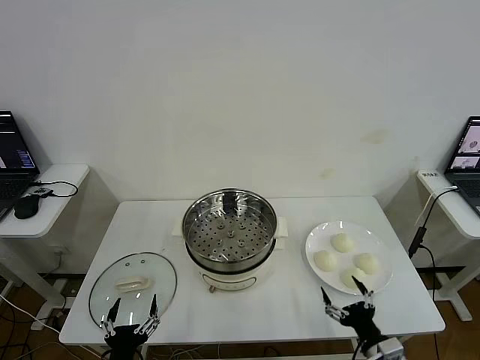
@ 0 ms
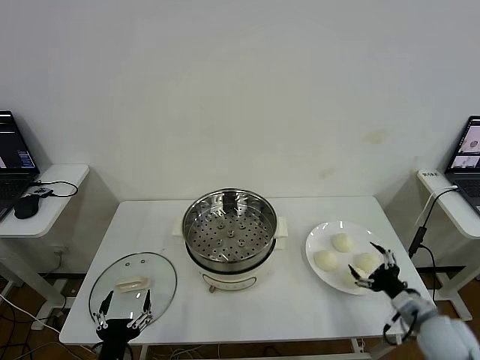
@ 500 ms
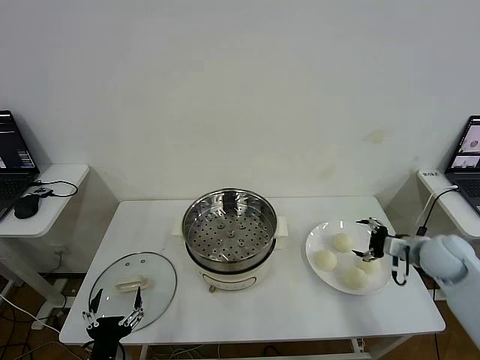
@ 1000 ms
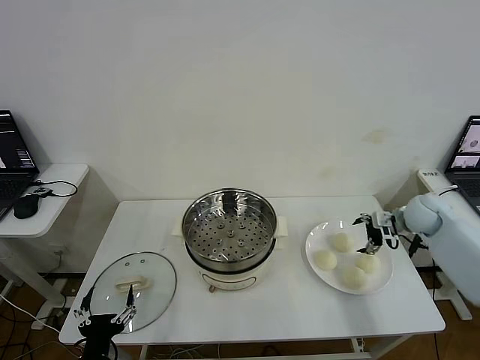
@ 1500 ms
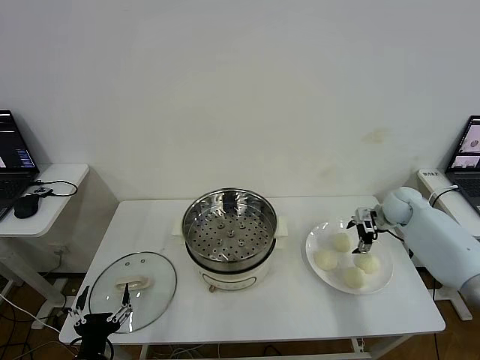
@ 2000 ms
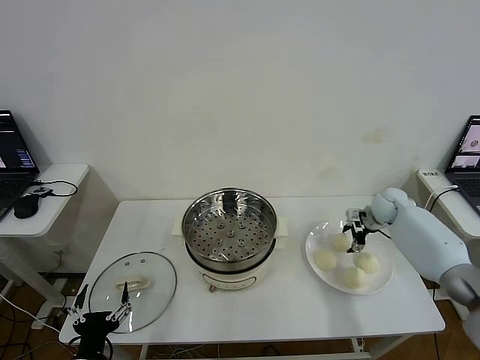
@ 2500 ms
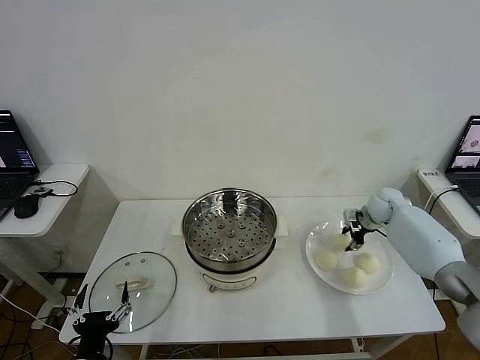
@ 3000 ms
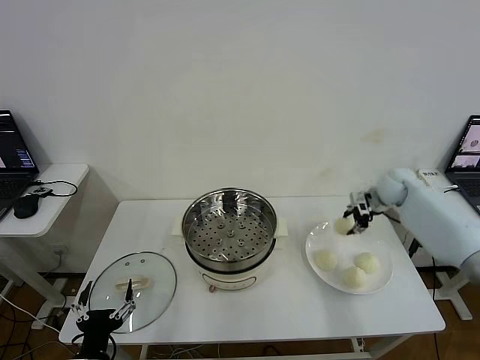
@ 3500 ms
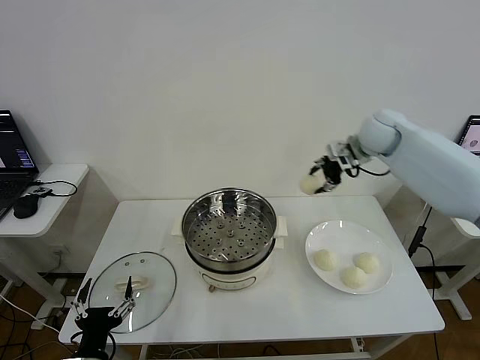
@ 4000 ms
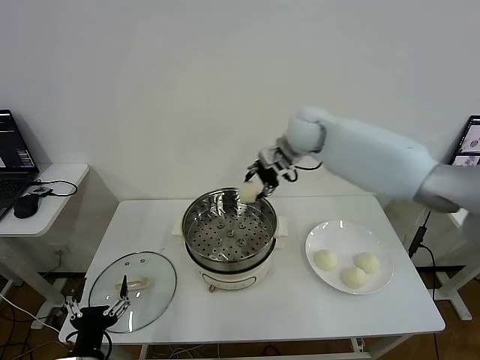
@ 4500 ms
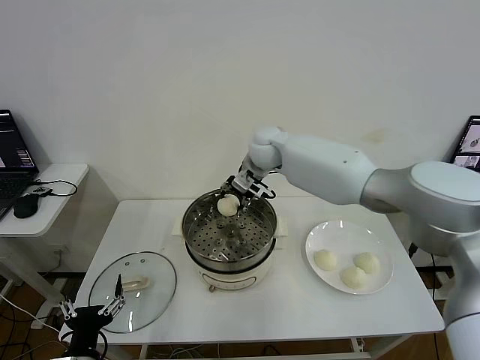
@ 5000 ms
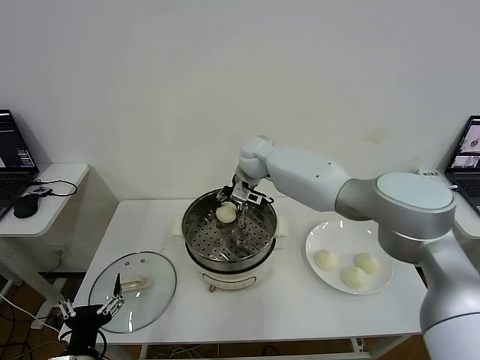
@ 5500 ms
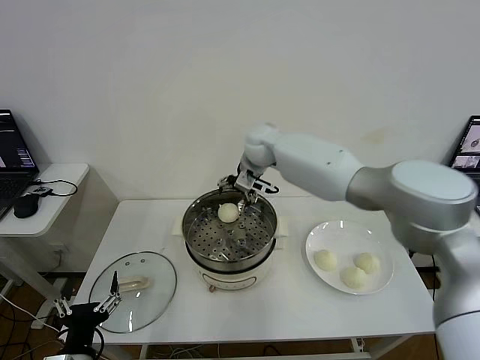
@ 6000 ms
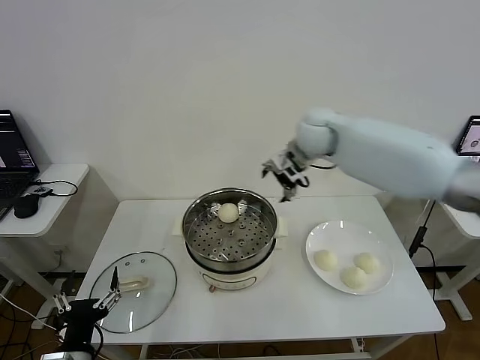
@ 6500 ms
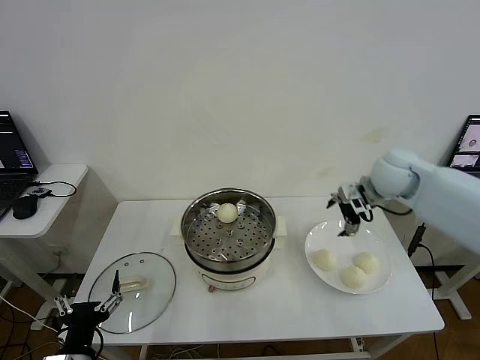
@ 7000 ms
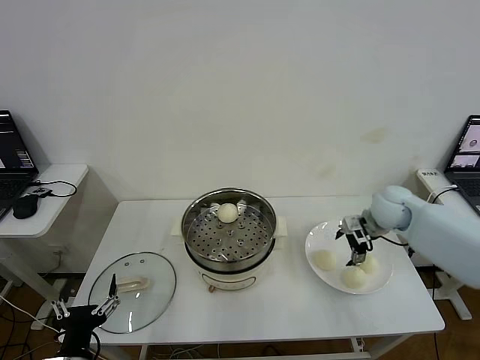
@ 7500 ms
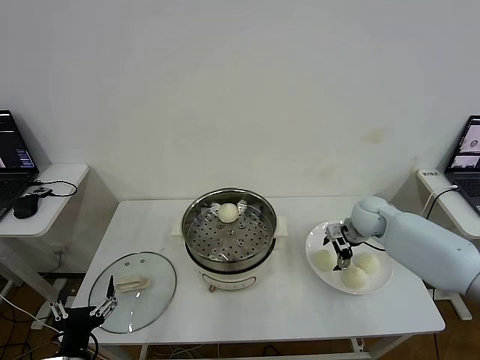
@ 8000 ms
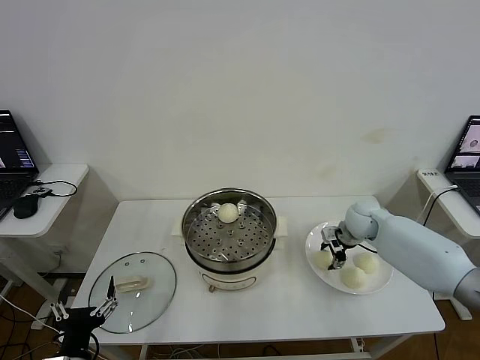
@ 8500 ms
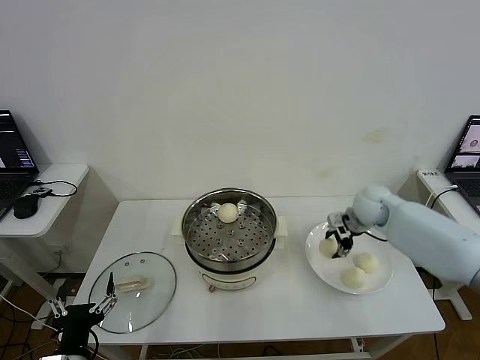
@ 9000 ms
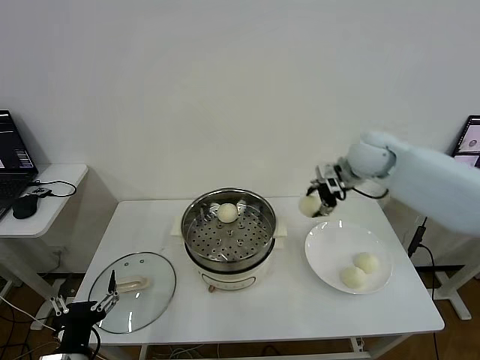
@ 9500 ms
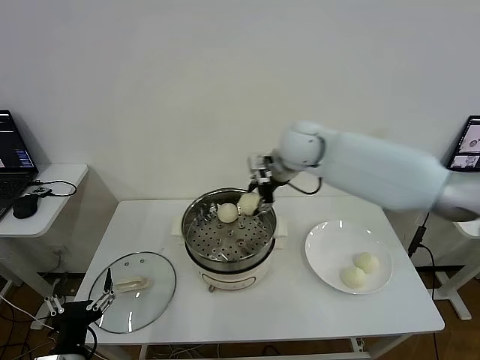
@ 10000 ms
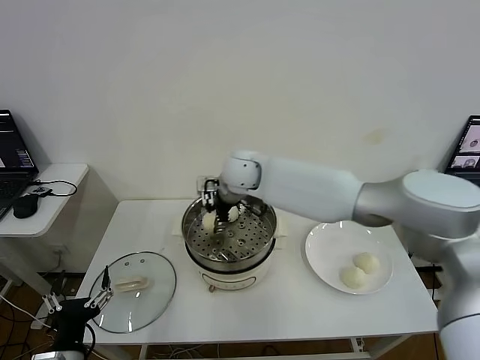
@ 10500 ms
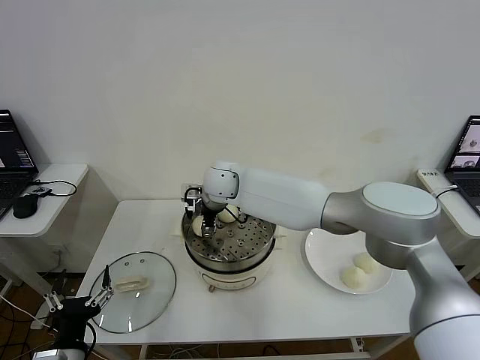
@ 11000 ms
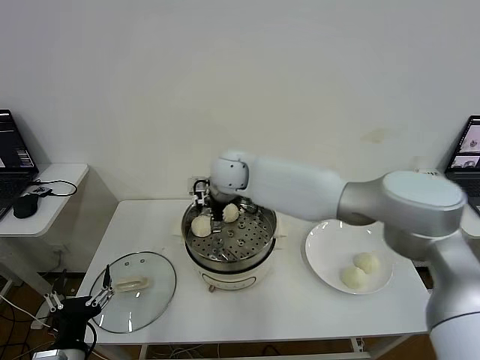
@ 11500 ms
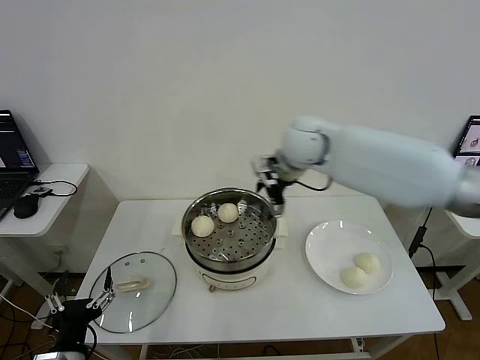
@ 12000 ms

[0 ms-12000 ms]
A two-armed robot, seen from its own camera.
Step, 0 ms to 2500 ms: Grasp the baozi in the plate with right gripper.
Step, 3500 ms to 5500 ms: Place the baozi on the steamer with right gripper.
Step, 6000 ms to 8500 ms: Grasp the baozi in the plate with right gripper.
Step, 9000 ms to 11000 ms: Place the baozi on the steamer with right gripper.
2000 ms to 4000 ms: The right gripper is displaced upward and to the left by some 25 cm, and closes up.
4000 ms to 6000 ms: The right gripper moves to the left, about 25 cm, and opens.
6000 ms to 8000 ms: The right gripper travels to the right and downward by approximately 30 cm.
8000 ms to 10000 ms: The right gripper shifts roughly 30 cm to the left and upward, and closes up.
10000 ms to 12000 ms: The right gripper moves roughly 15 cm to the left and comes back, and opens up.

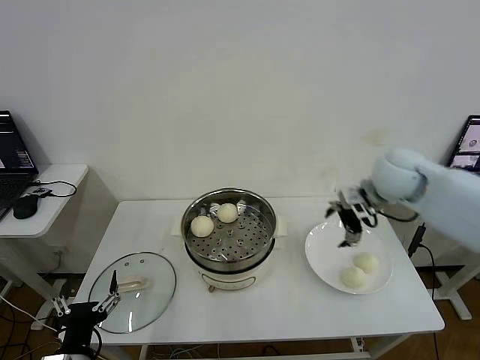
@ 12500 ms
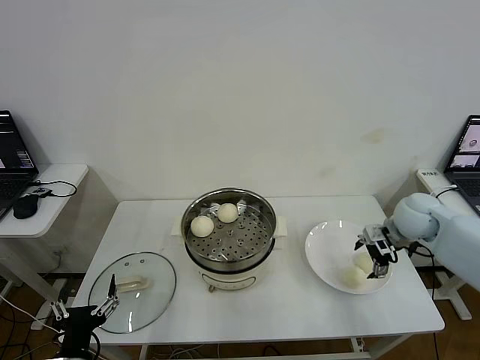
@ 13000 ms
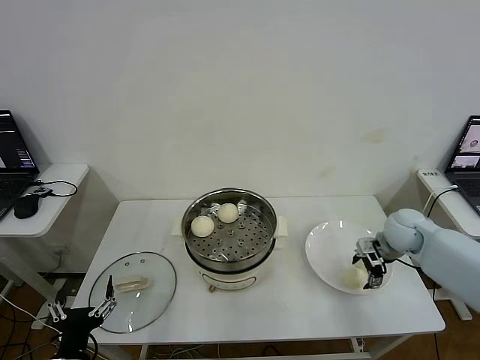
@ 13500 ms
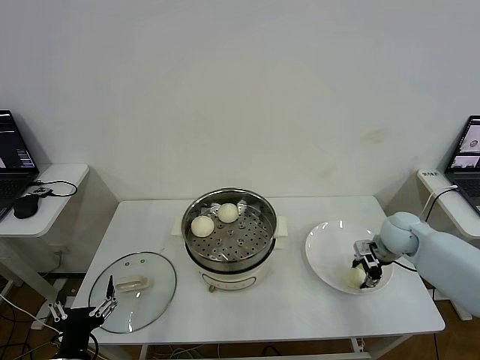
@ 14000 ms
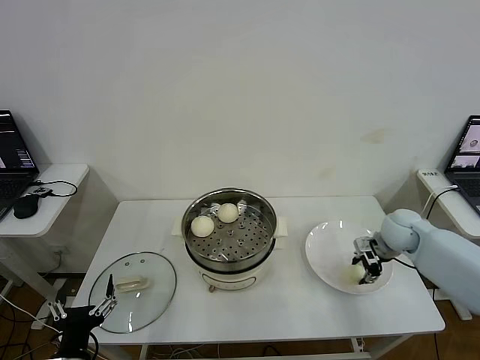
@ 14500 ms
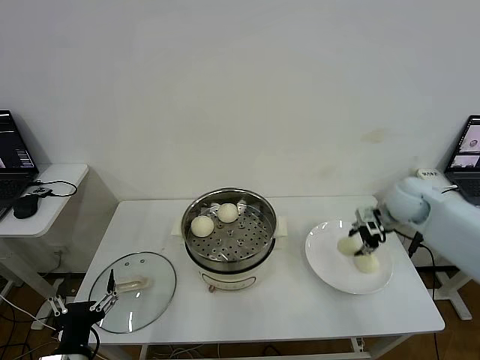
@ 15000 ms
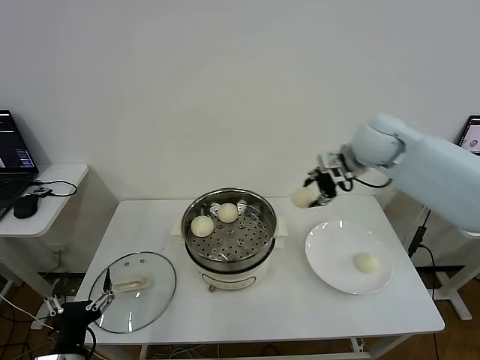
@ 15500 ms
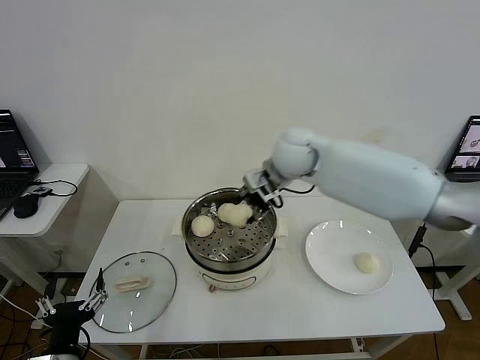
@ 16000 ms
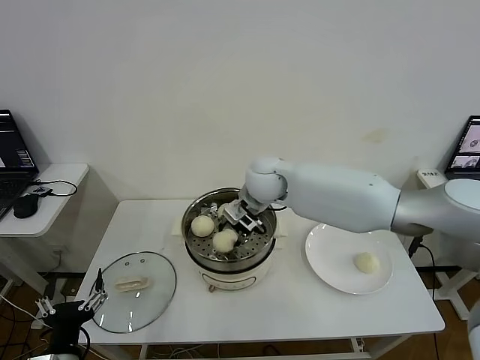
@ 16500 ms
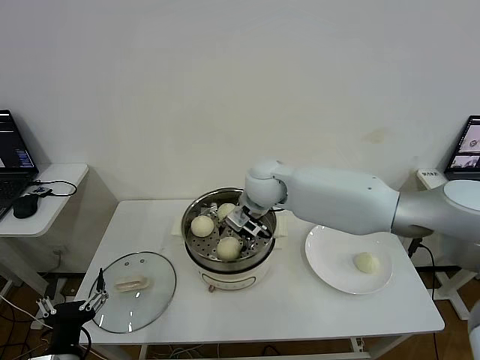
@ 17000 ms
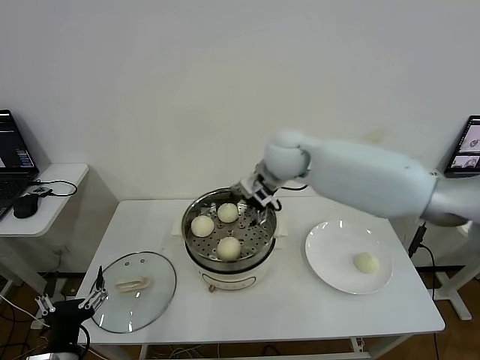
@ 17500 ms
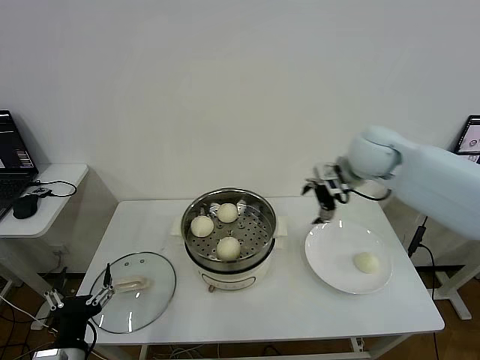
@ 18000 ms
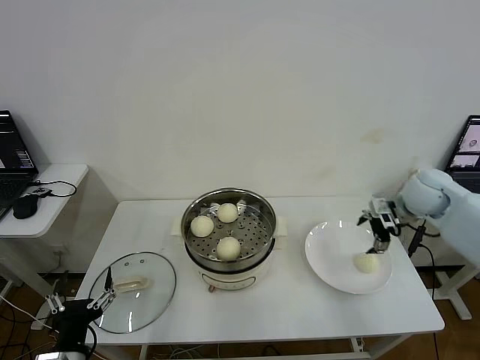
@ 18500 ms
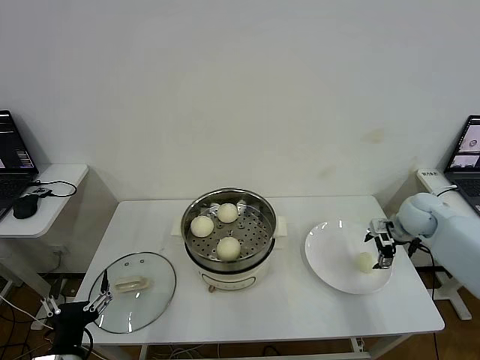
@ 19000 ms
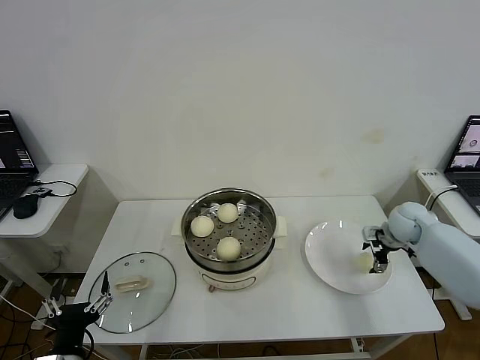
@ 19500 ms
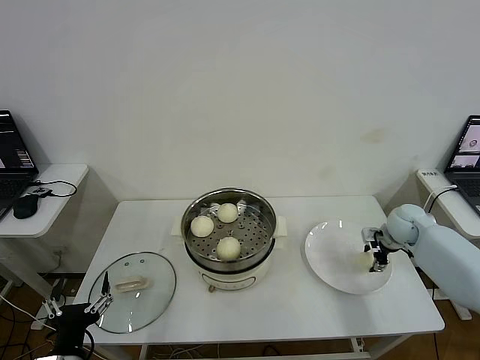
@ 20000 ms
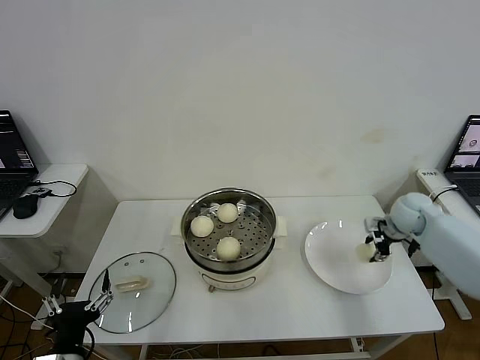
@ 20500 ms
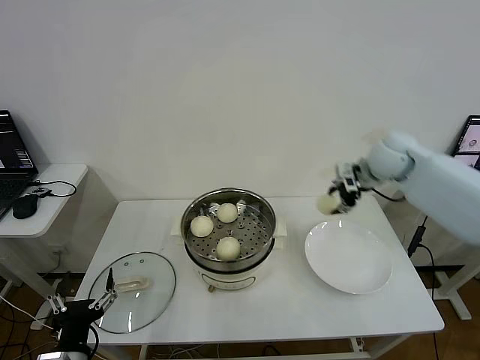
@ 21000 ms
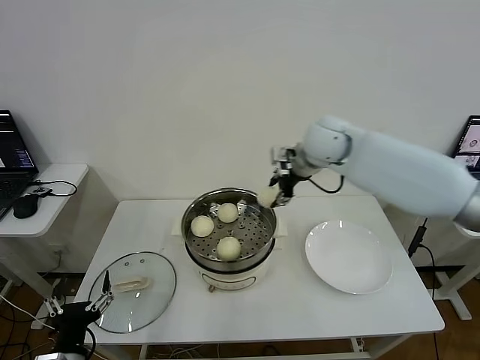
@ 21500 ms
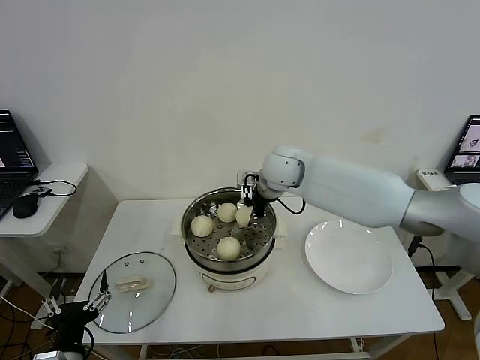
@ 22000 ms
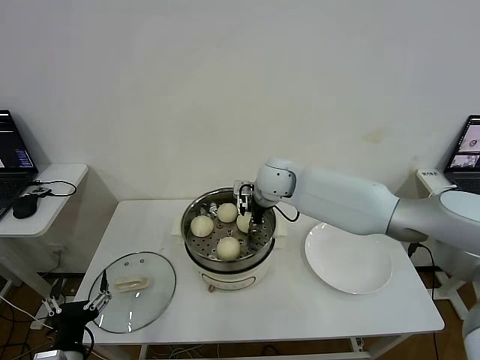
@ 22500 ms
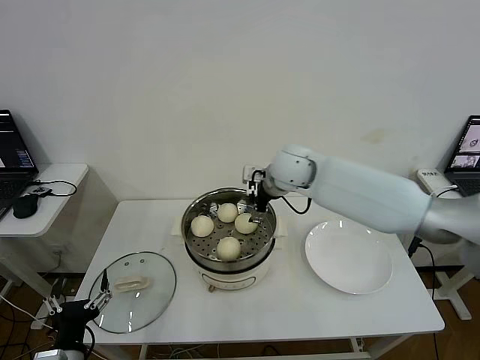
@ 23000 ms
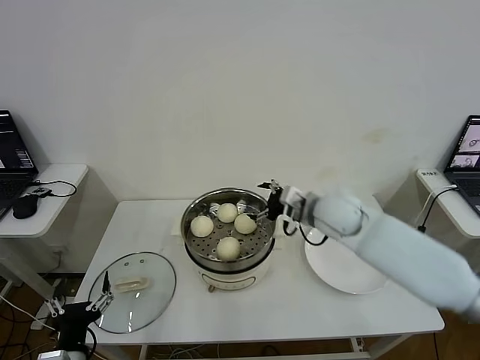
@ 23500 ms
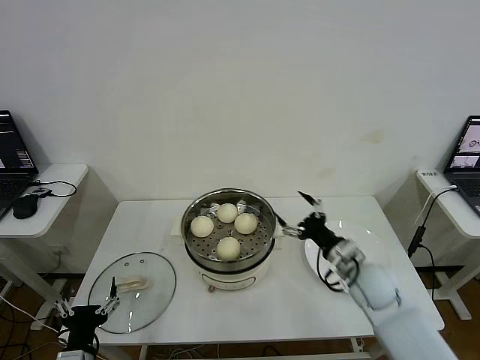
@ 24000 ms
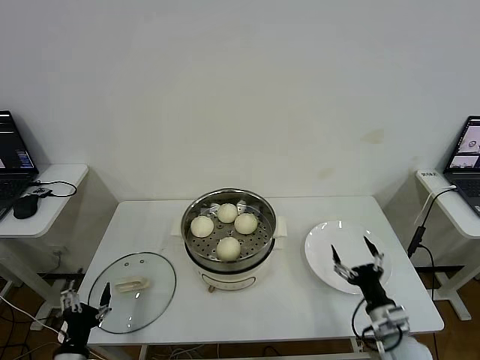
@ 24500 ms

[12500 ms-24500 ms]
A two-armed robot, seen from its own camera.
Step, 12500 ms to 14000 ms: Grasp the baozi in the plate with right gripper.
Step, 14500 ms to 17000 ms: Place the baozi on the steamer with right gripper.
Step, 17500 ms to 20000 ms: Grasp the baozi in the plate with right gripper.
Step, 20500 ms to 22500 ms: Place the baozi on the steamer with right gripper.
12500 ms to 14500 ms: The right gripper travels downward and to the right by about 20 cm, and closes up.
14500 ms to 16500 ms: The right gripper is displaced to the left by about 35 cm.
16500 ms to 18500 ms: The right gripper goes some 35 cm to the right, and opens up.
18500 ms to 20500 ms: The right gripper moves downward, some 10 cm, and closes.
20500 ms to 22500 ms: The right gripper shifts roughly 35 cm to the left.
22500 ms to 24500 ms: The right gripper shifts approximately 50 cm backward, to the right and downward, and opens its fingers. Meanwhile the left gripper moves downward, about 5 cm.

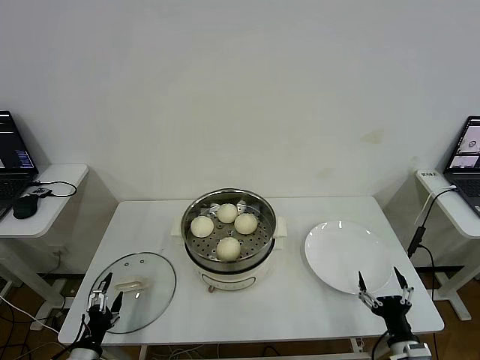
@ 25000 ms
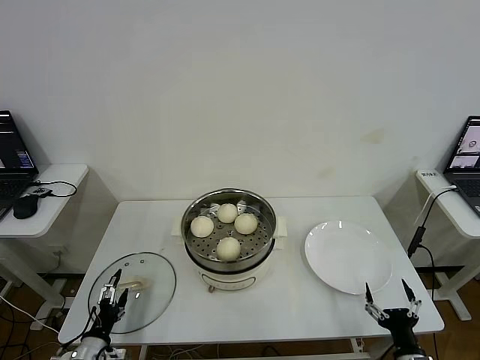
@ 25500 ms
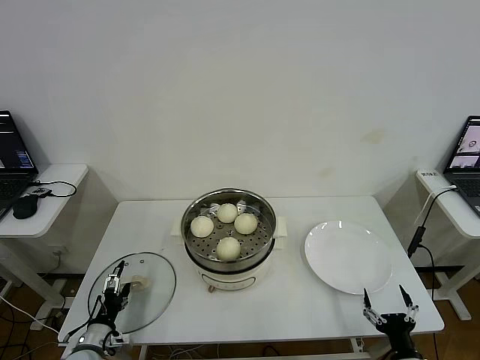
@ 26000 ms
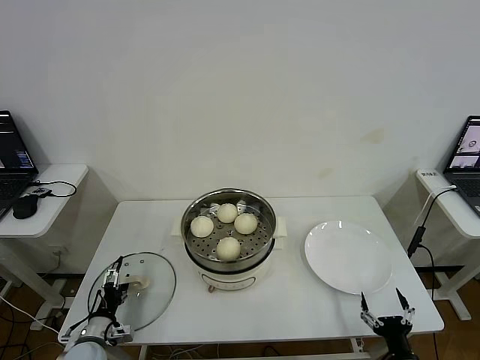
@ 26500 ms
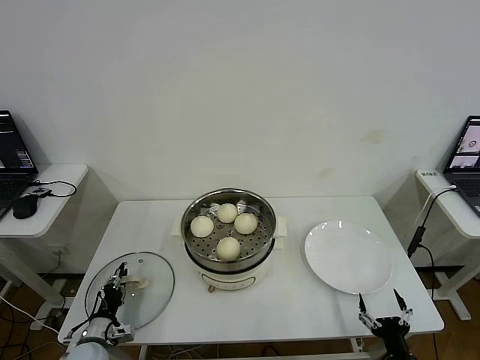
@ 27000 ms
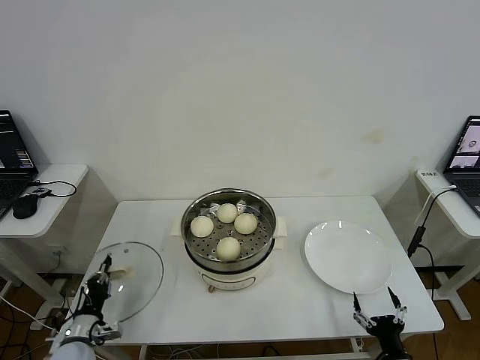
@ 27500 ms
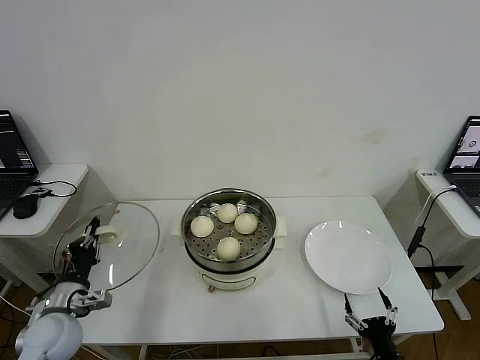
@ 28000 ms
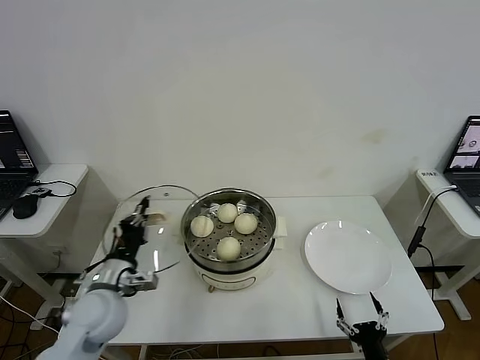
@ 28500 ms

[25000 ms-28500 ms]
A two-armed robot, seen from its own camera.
Step, 25000 ms to 27000 ms: Grasp the pot lid with left gripper.
25000 ms to 27000 ms: The left gripper travels forward by about 10 cm, and closes, while the right gripper ends up some 5 cm from where it was.
27000 ms to 28500 ms: The left gripper heads upward and to the right, covering some 20 cm, and closes its fingers.
